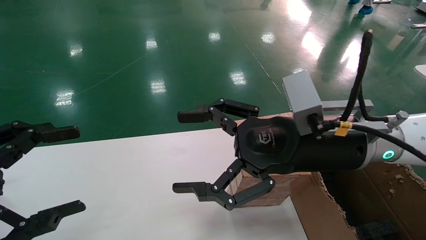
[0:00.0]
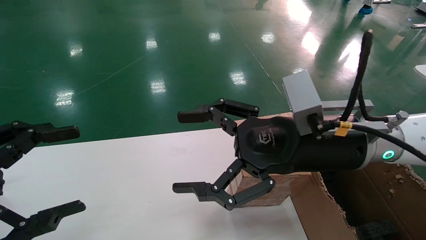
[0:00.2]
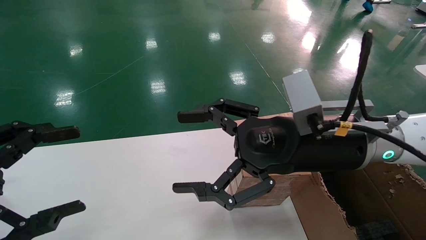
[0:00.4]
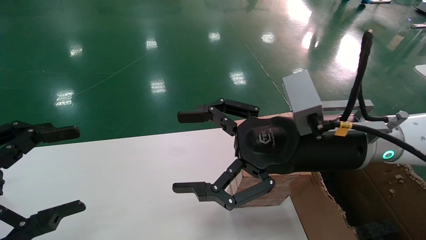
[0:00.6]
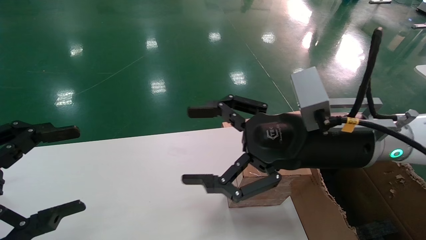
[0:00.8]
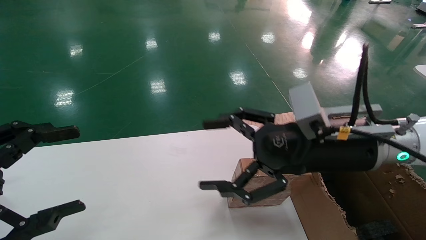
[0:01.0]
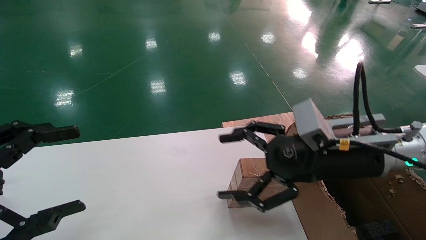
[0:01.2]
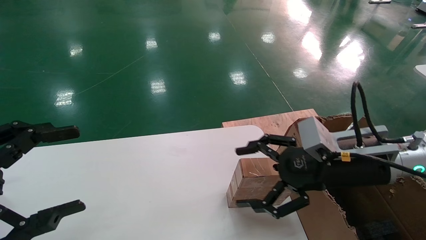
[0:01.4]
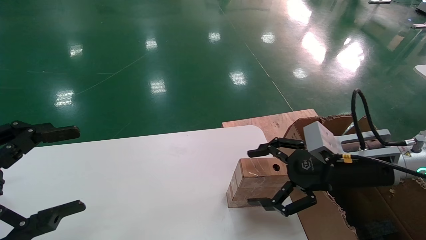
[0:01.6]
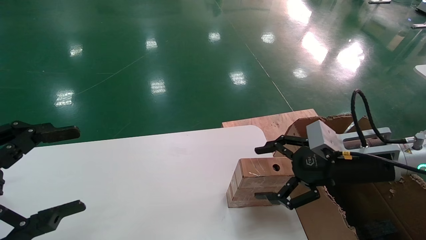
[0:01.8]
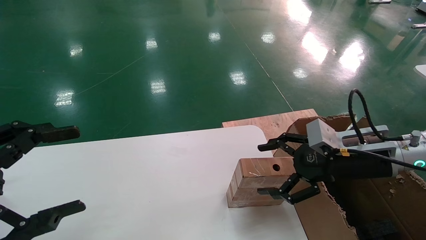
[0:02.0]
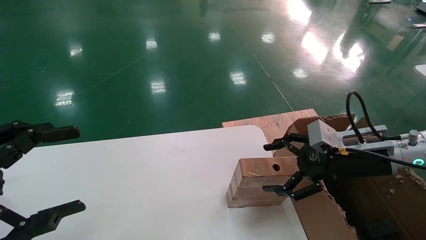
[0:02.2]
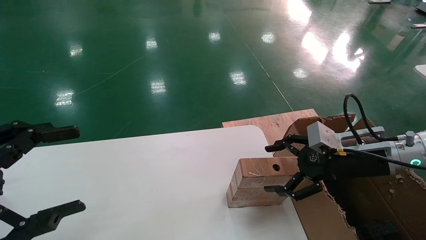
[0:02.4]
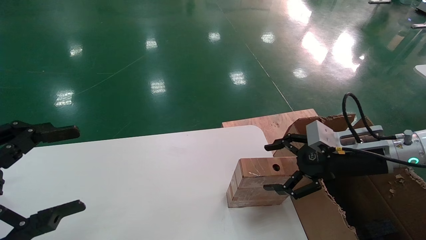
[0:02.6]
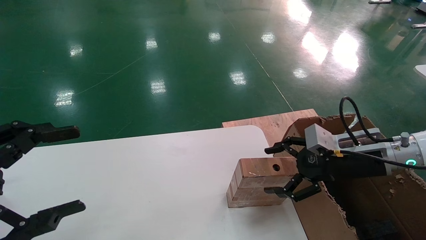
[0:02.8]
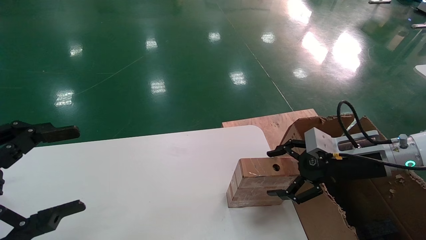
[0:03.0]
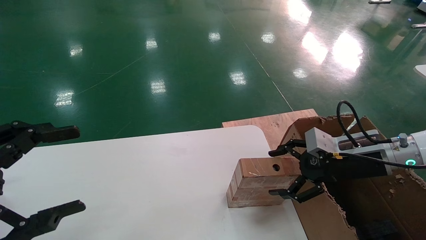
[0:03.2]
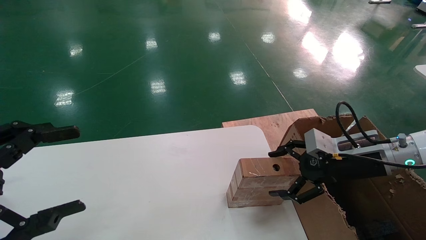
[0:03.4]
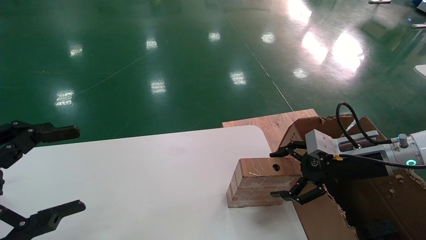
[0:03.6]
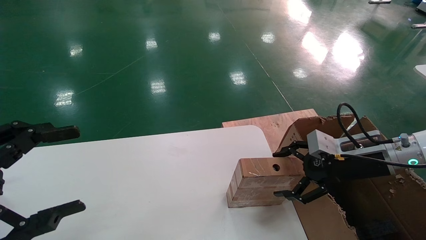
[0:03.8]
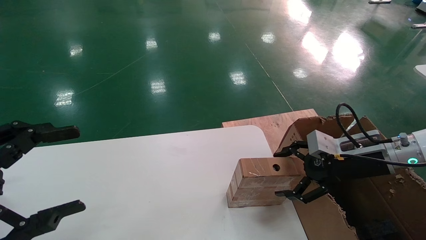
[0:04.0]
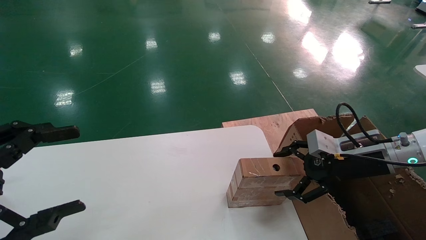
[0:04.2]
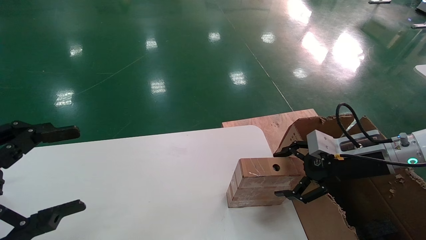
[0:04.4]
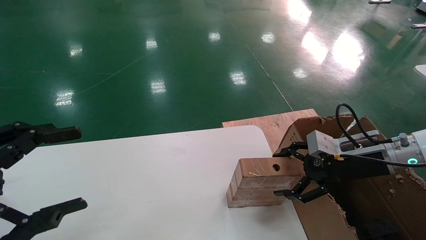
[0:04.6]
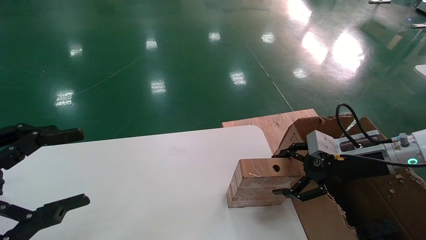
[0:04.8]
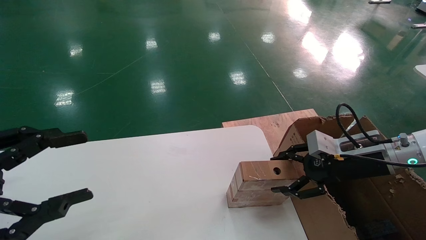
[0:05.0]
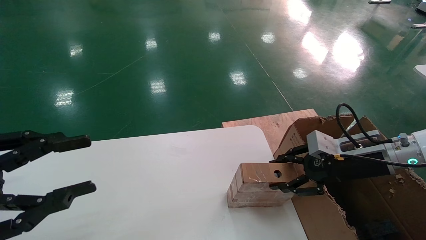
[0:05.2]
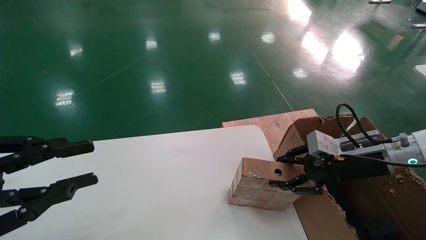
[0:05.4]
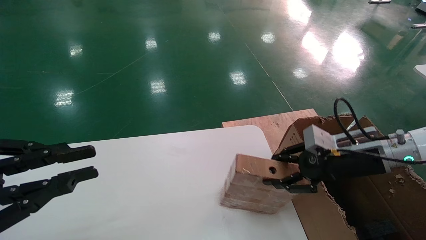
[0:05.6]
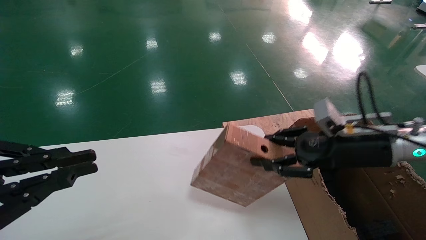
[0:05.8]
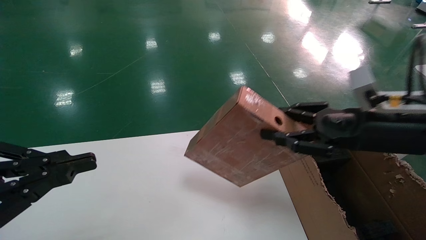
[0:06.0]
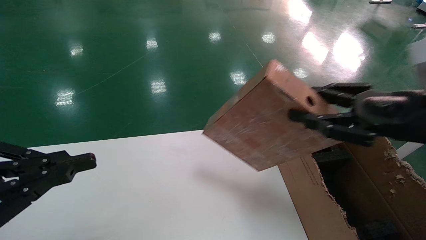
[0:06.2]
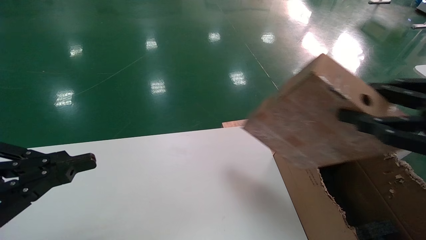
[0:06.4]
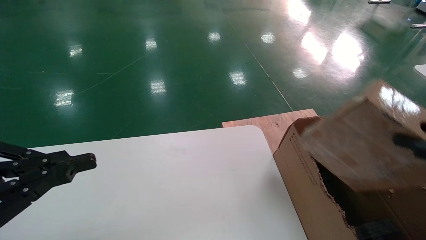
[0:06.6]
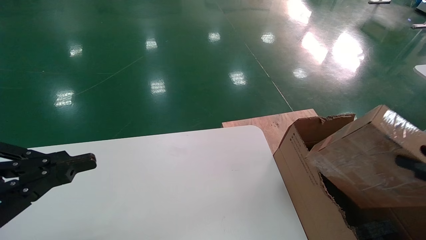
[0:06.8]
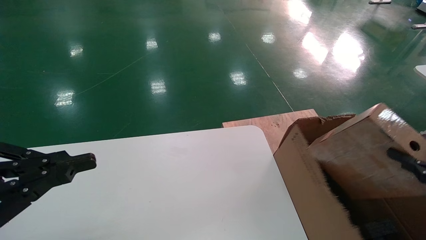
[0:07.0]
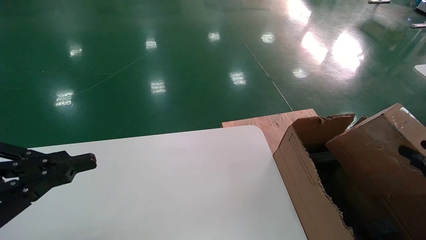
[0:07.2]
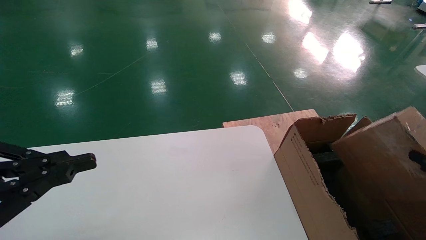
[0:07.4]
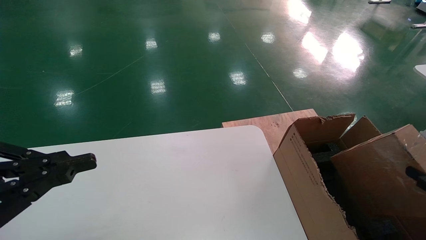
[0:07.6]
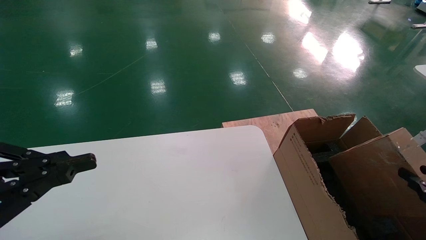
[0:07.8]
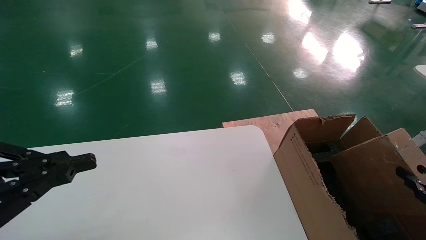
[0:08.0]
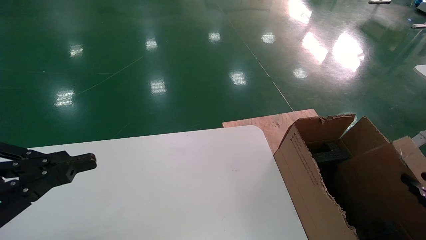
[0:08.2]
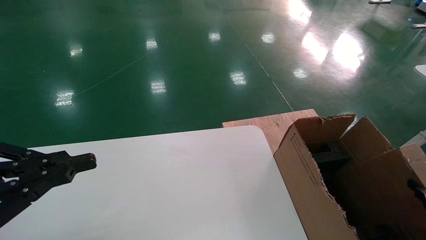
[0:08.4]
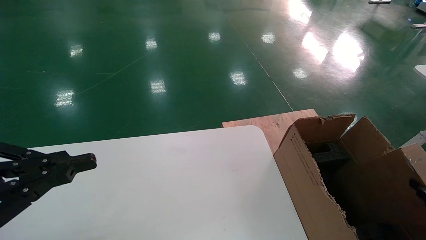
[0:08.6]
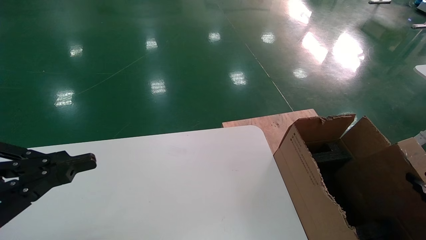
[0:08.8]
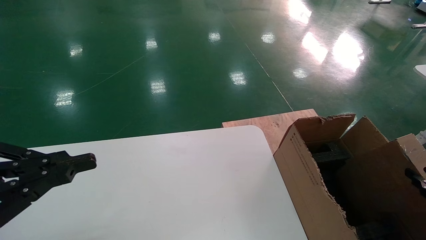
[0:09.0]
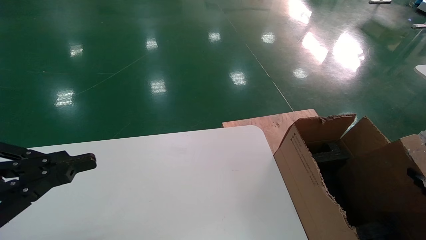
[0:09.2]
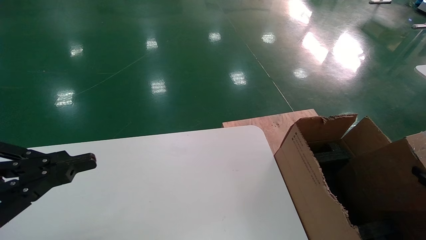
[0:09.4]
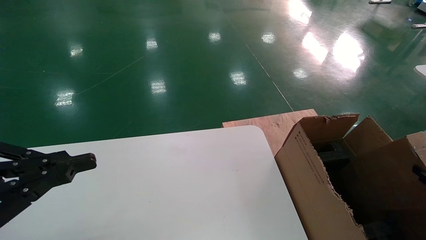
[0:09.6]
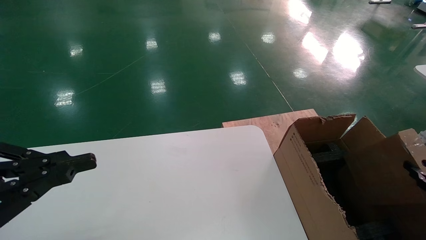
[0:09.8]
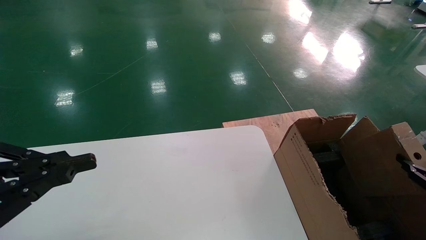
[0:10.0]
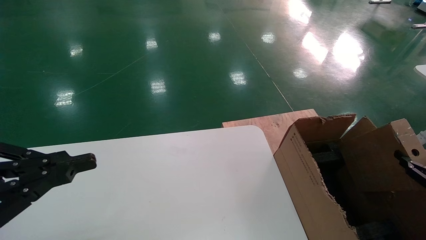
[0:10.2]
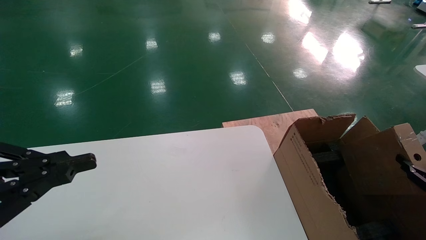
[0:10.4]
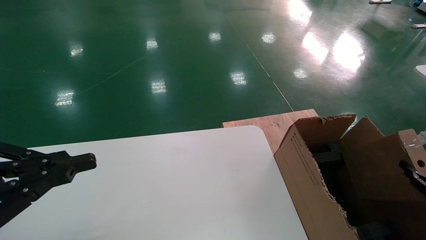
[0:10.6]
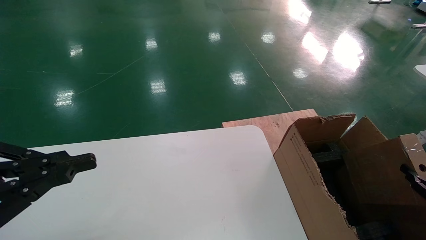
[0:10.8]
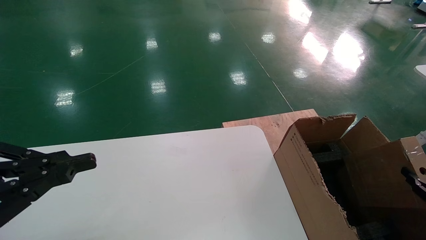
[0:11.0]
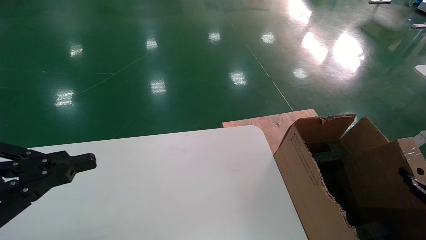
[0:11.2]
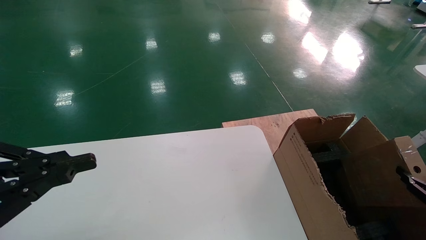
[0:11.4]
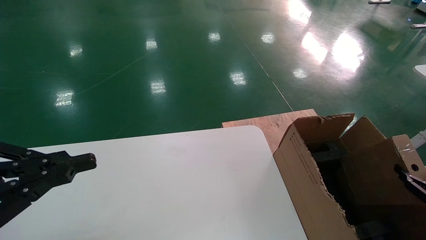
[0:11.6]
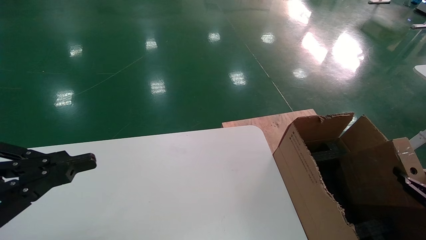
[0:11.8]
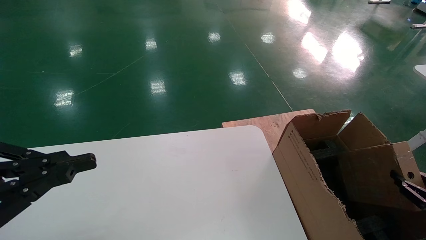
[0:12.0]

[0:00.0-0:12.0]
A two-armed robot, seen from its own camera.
Task of the whole recording: put the box on the table into the big box.
Step, 0:01.2 to 0:05.6: Pick up the mouse and the power cord paper box.
0:00.0 to 0:01.6: The right gripper is displaced to the right and downward by some 10 cm.
0:01.6 to 0:03.0: The right gripper is displaced to the right by some 5 cm.
0:03.0 to 0:04.4: The grippers move only a little.
0:04.4 to 0:06.0: The right gripper goes roughly 10 cm upward and backward, and closes up. The left gripper closes.
0:06.0 to 0:07.6: The right gripper heads backward, to the right and downward, covering some 25 cm.
0:07.6 to 0:09.0: The right gripper heads downward and to the right, covering approximately 10 cm.
0:10.4 to 0:12.0: The grippers make only small movements.

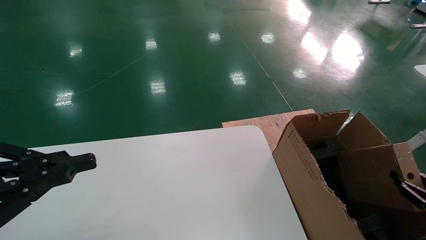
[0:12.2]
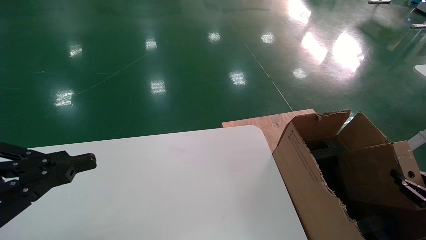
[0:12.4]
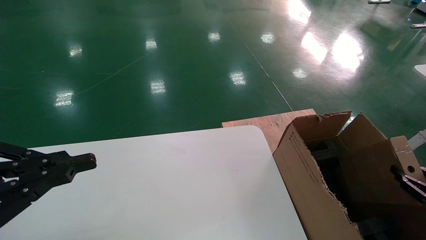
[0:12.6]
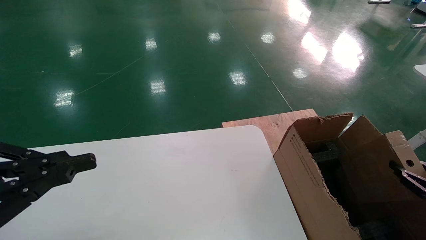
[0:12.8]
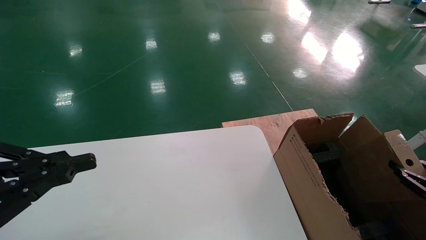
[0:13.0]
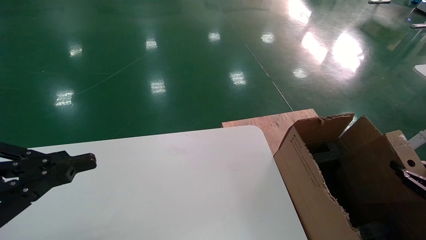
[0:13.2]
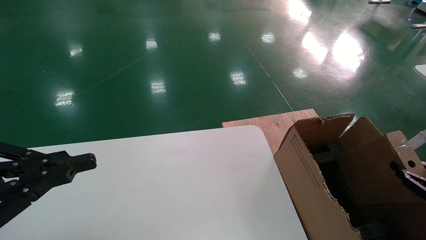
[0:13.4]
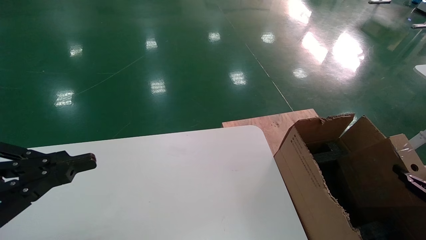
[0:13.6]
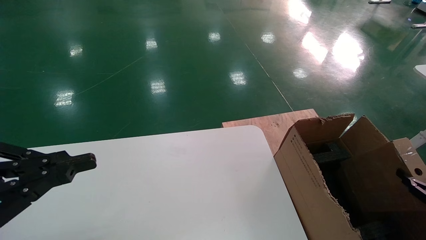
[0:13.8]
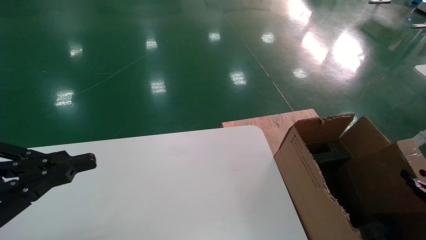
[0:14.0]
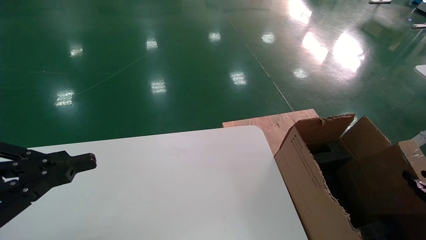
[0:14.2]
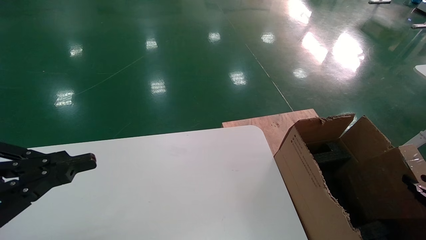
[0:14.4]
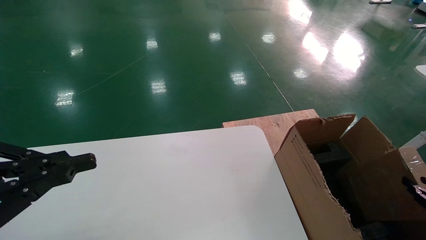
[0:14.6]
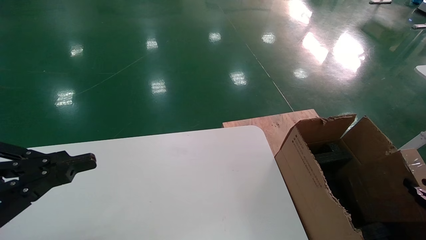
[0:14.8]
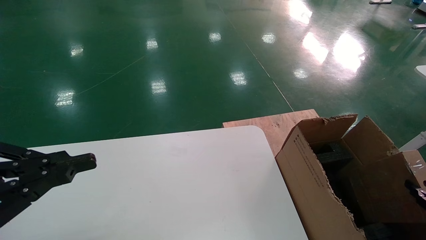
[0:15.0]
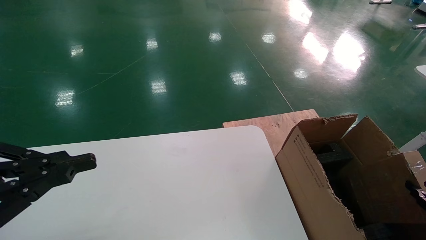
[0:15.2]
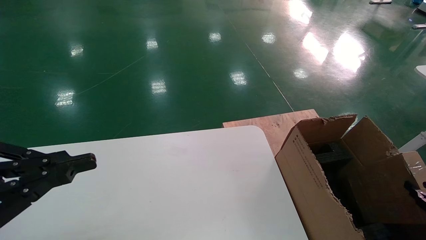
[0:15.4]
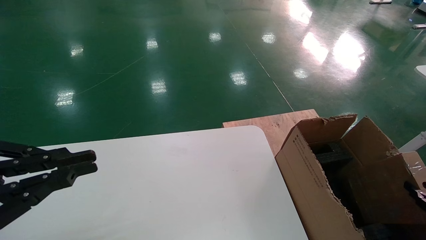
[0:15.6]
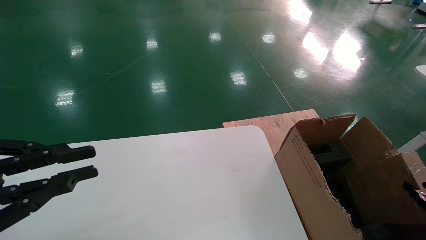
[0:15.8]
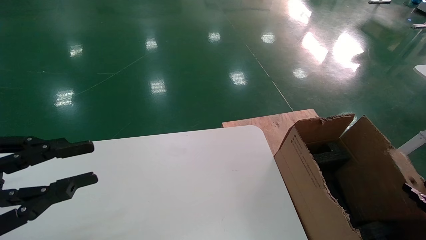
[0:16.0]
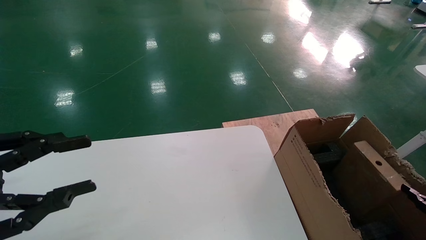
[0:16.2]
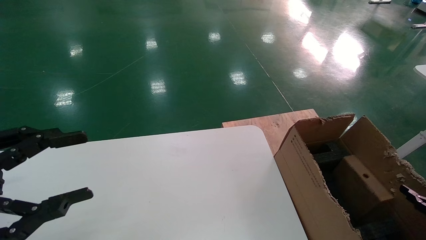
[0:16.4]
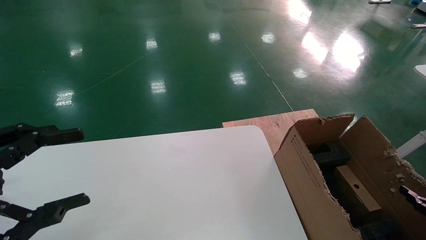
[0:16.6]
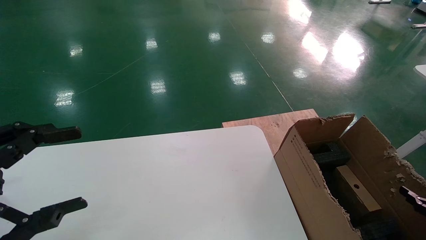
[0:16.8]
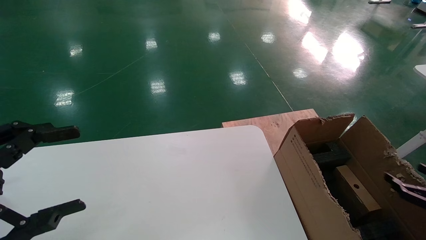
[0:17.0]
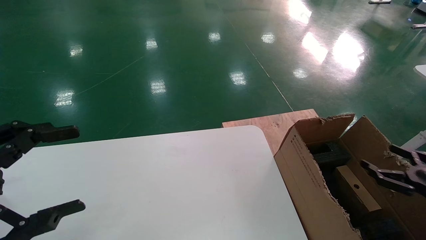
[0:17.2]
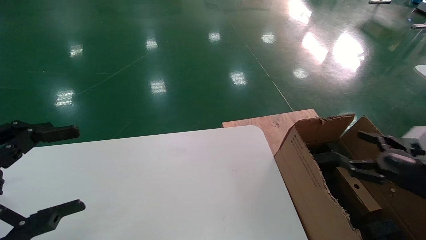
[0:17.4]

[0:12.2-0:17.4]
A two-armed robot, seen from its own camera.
Task of the whole recording: put the box on the table into the big box.
Step, 0:12.2 to 0:16.2: Place the mouse and the power cord paper box into the container.
0:12.2 to 0:15.6: The grippers make only small movements.
0:15.6 to 0:17.4: The left gripper opens, while the right gripper shifts roughly 15 cm to the left, upward and forward, and opens its fingers.
